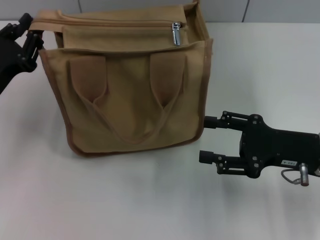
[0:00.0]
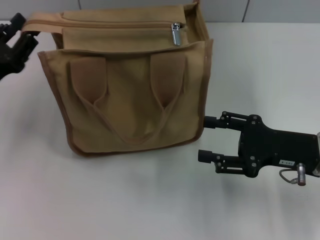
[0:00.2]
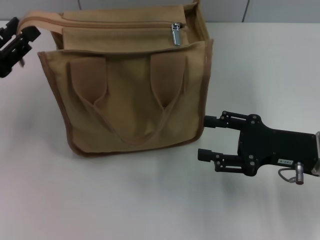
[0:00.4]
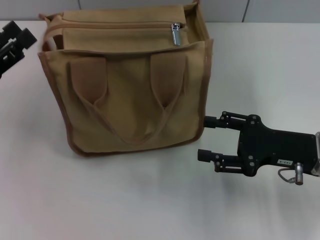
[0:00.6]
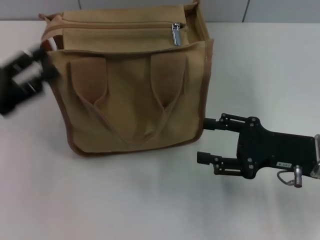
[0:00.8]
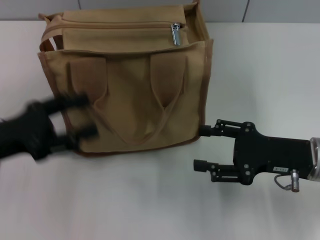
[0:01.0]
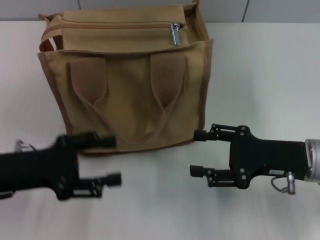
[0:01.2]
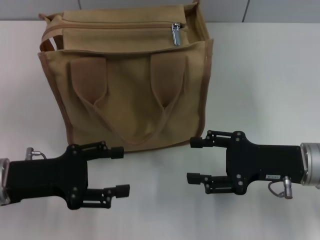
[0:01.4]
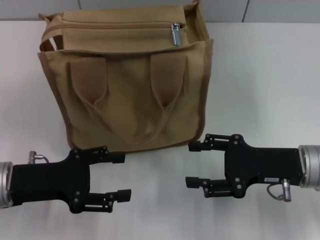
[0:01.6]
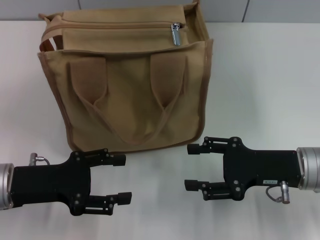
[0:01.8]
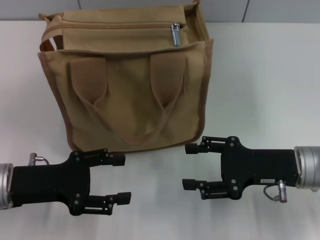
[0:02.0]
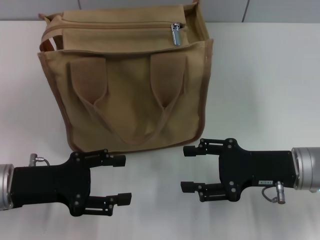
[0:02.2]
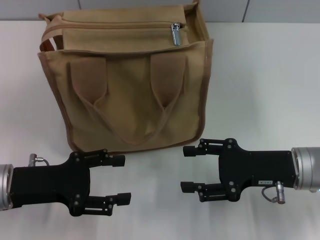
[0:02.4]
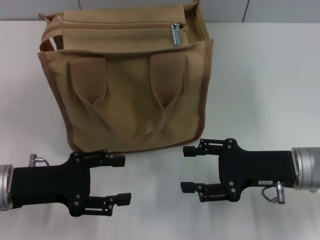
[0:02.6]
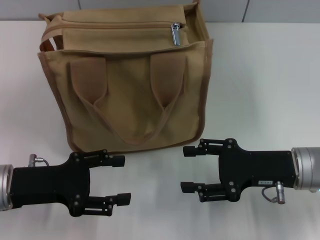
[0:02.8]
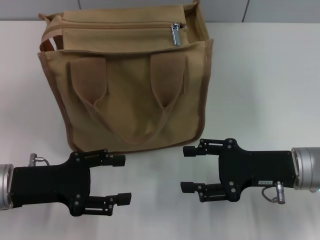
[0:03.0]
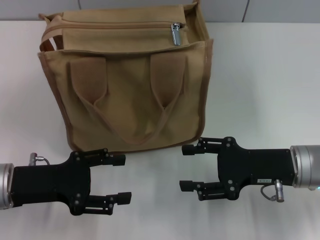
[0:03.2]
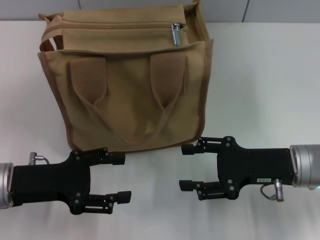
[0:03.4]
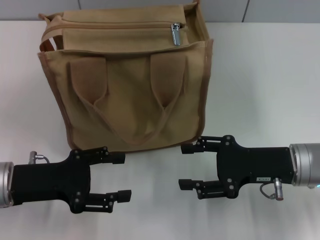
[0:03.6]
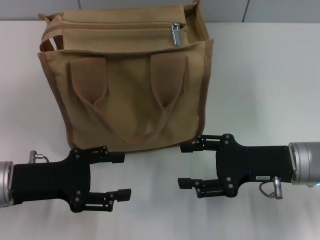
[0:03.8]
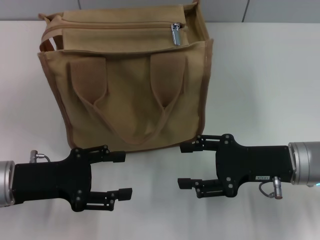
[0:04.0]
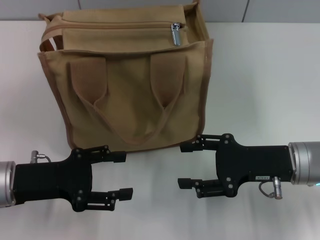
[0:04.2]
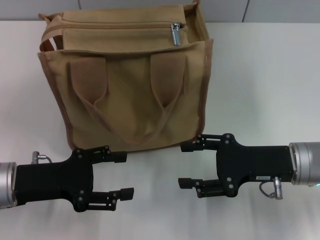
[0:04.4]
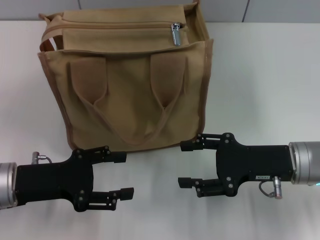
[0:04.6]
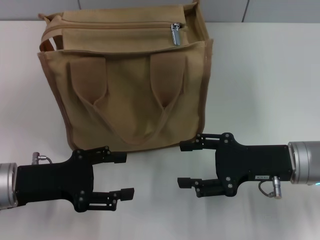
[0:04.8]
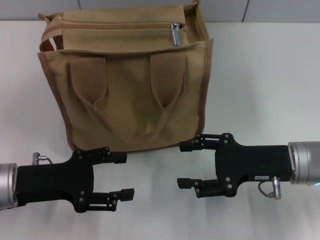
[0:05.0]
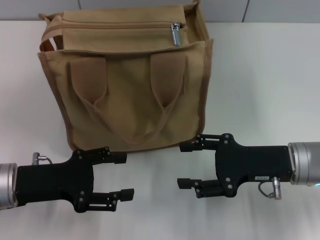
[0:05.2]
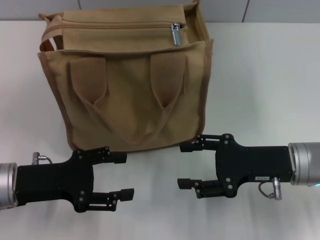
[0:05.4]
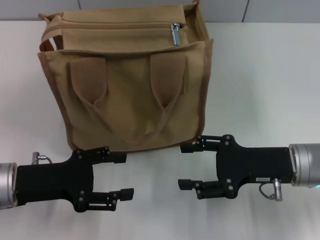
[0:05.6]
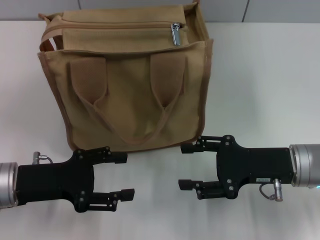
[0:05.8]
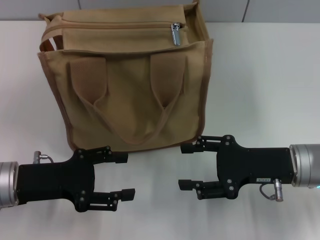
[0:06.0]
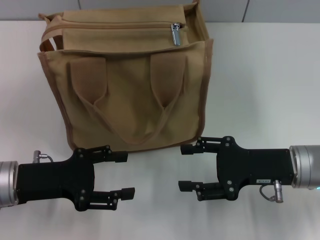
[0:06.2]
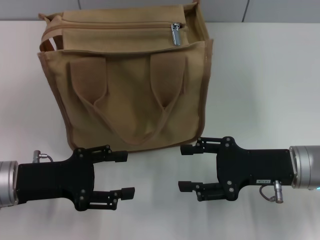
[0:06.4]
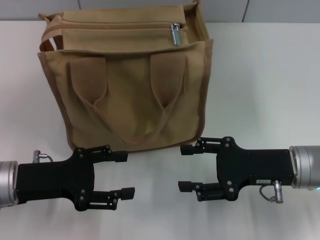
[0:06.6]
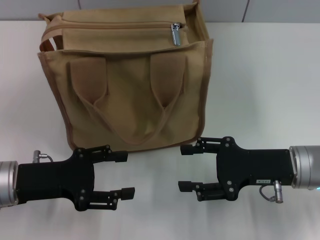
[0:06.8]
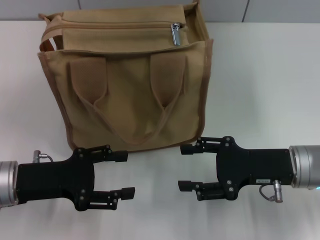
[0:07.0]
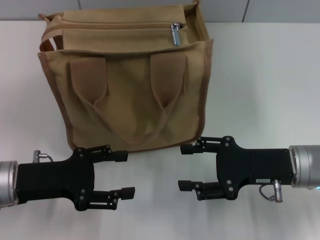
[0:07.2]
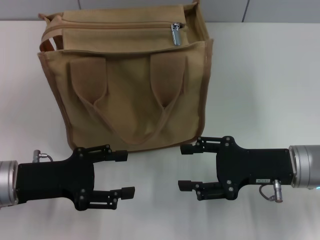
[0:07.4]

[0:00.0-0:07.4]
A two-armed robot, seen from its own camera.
0:00.0 to 0:01.4: The left gripper is displaced backward by roughly 5 cm, and opens up.
0:01.4 to 0:04.4: The two grippers keep their place.
0:04.4 to 0:07.4: The two grippers keep their place.
